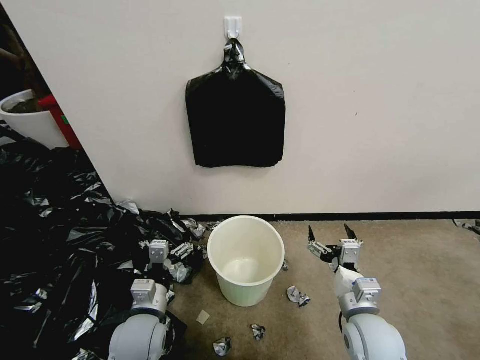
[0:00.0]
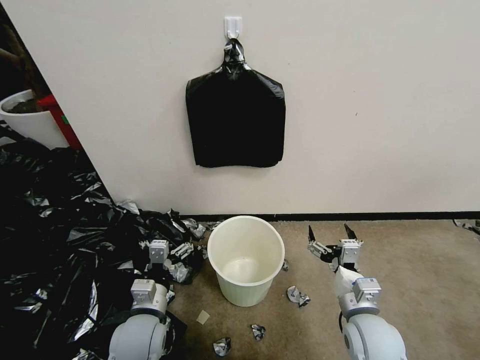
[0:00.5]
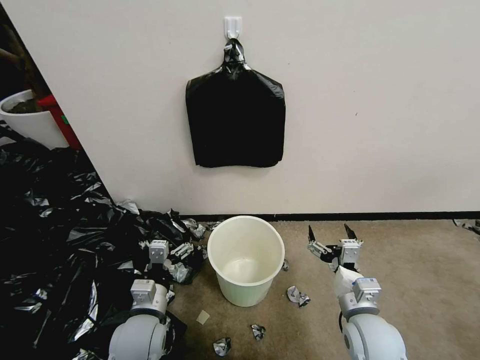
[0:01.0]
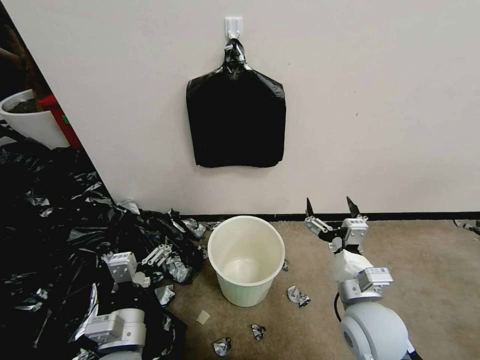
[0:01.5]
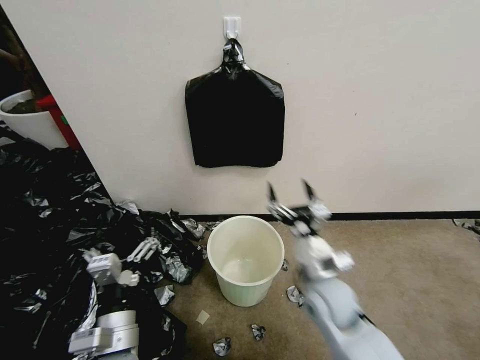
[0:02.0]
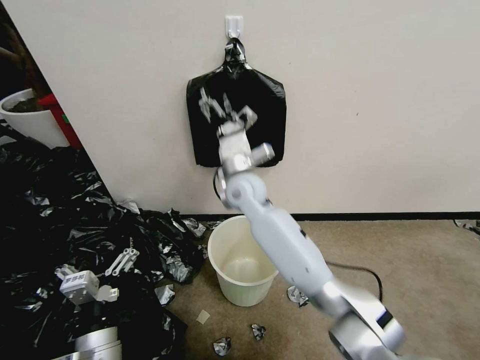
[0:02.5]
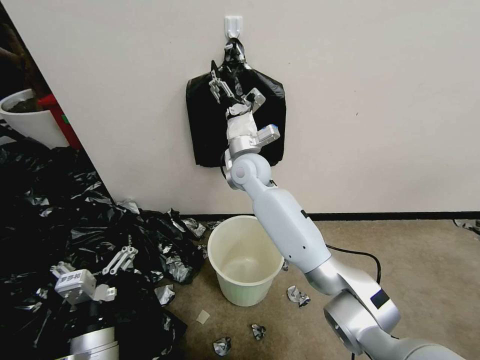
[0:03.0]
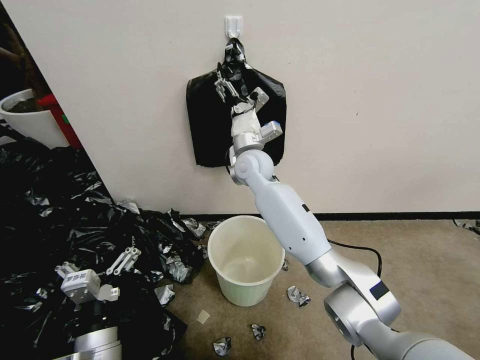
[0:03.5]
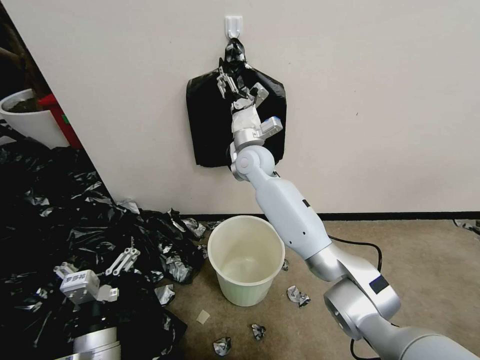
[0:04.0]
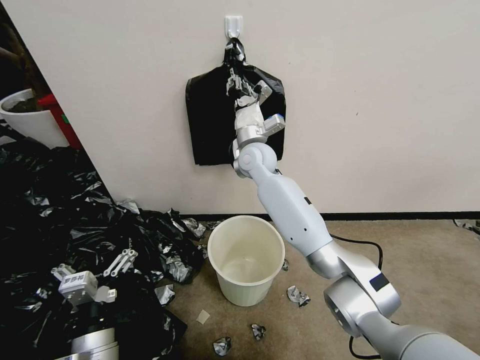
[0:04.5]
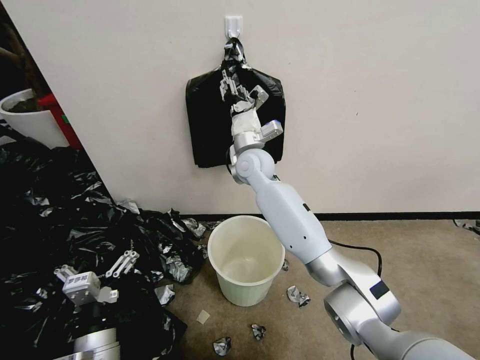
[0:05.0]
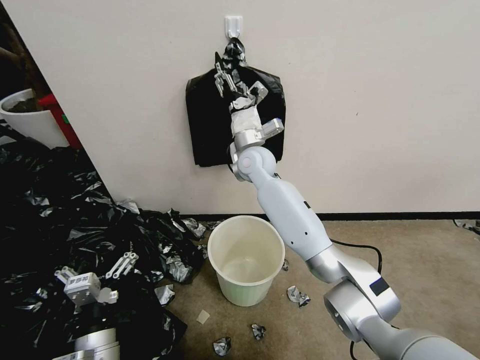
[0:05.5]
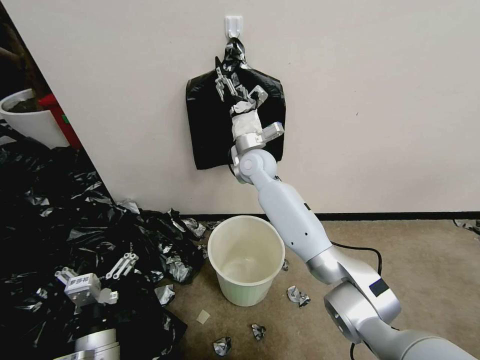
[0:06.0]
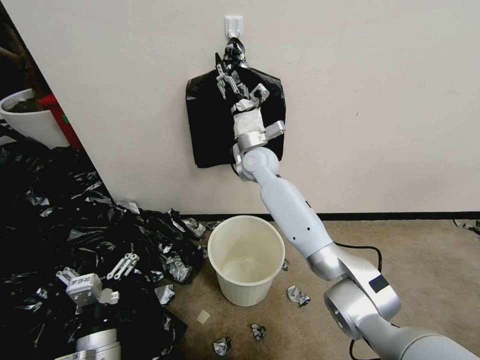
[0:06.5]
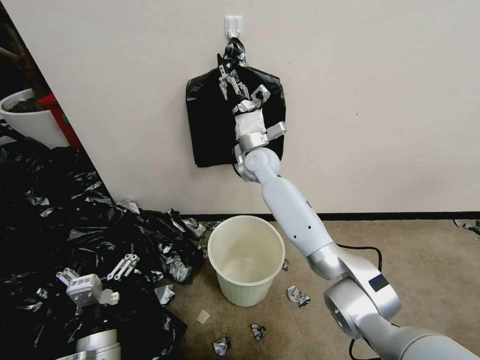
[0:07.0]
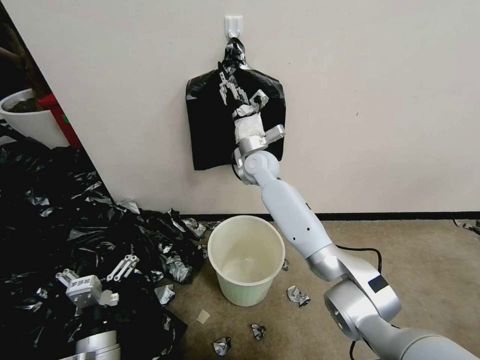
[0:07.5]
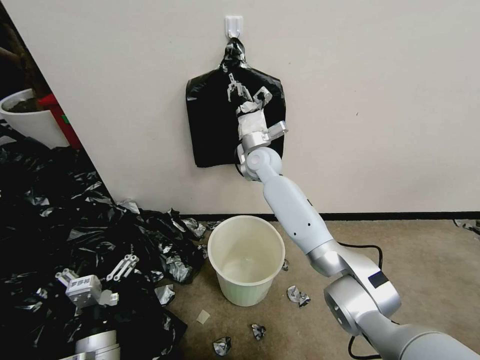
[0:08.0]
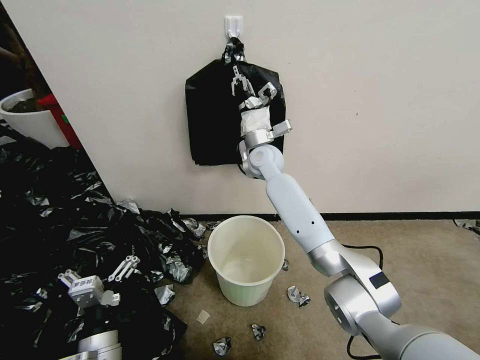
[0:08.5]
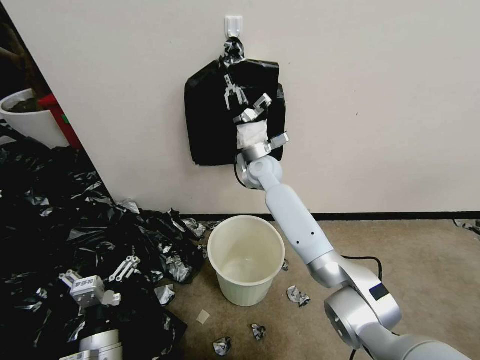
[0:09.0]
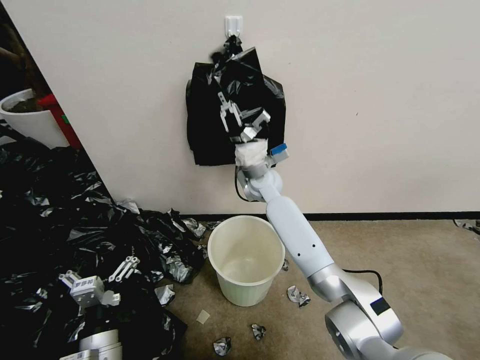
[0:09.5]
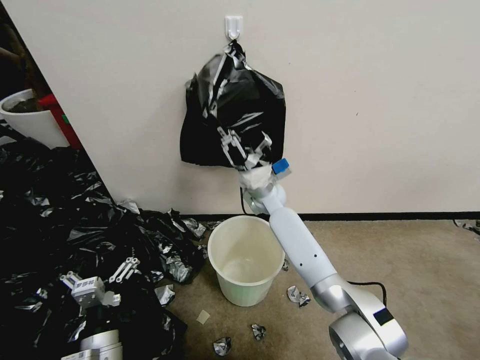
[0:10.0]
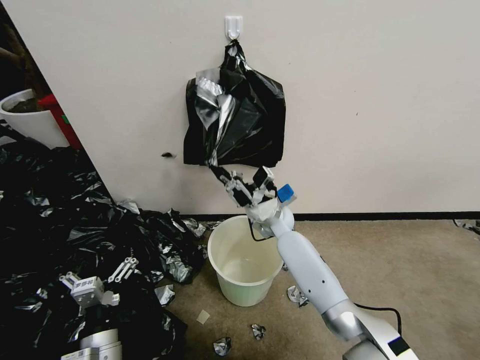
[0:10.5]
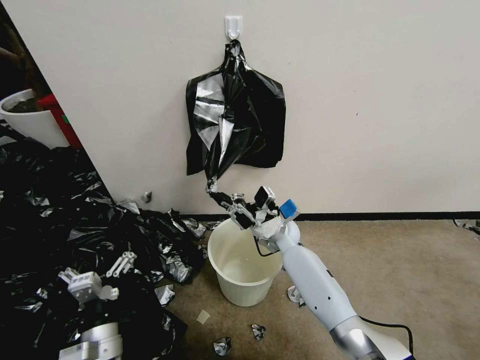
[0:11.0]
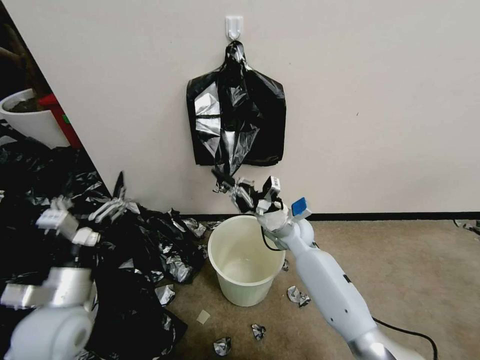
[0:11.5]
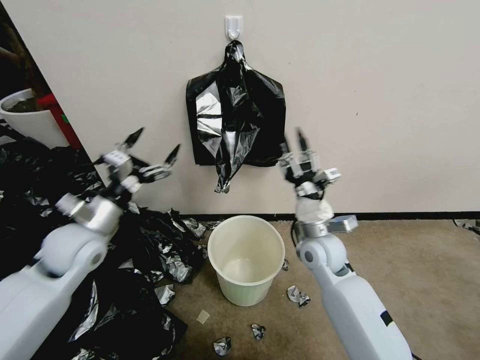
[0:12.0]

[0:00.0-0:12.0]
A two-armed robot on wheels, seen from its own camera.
Task of the whole recording: Place a trash bag onto the trash bin.
0:02.0 to 0:04.0: The right gripper travels forward, to the left and upward by roughly 35 cm.
0:04.0 to 0:06.0: The right gripper closes, then opens again.
0:06.0 to 0:08.0: The right gripper closes its fingers.
0:08.0 to 0:10.0: The right gripper heads downward, covering some 10 cm.
0:10.0 to 0:12.0: The left gripper moves forward and upward, some 25 cm, while the right gripper moves backward and to the right, approximately 20 cm, and opens up.

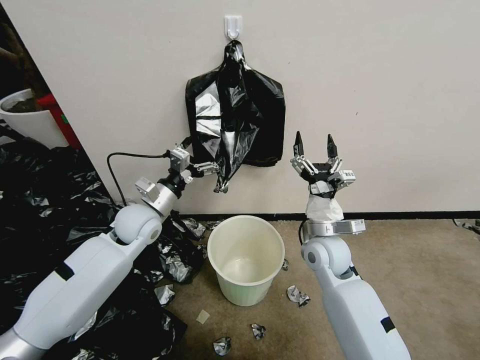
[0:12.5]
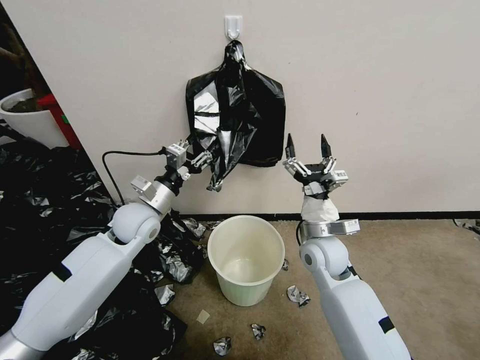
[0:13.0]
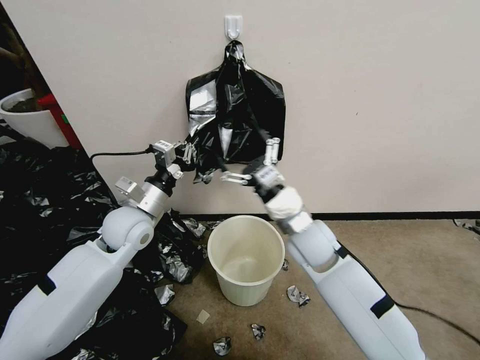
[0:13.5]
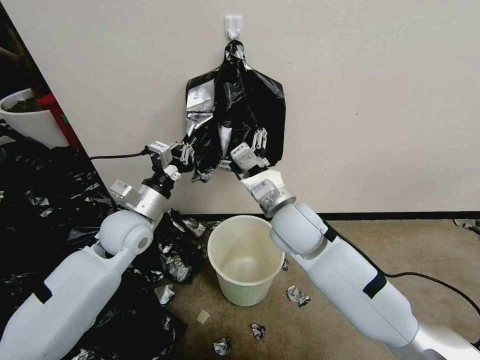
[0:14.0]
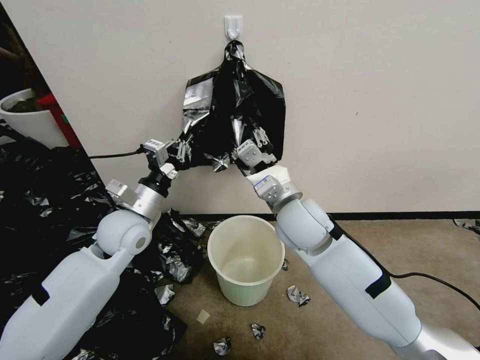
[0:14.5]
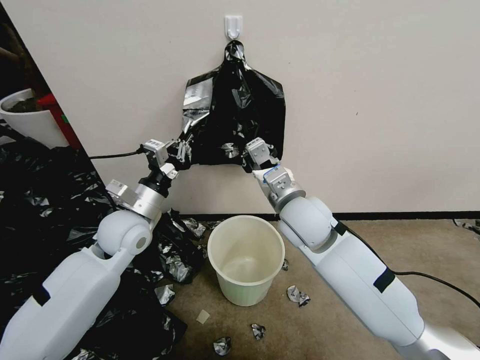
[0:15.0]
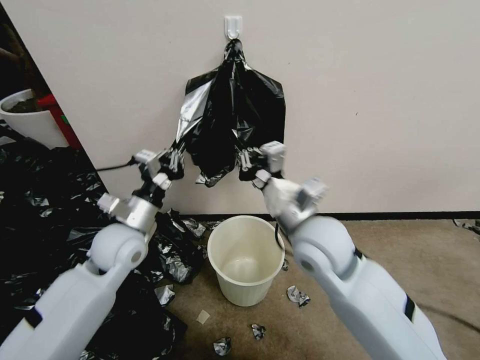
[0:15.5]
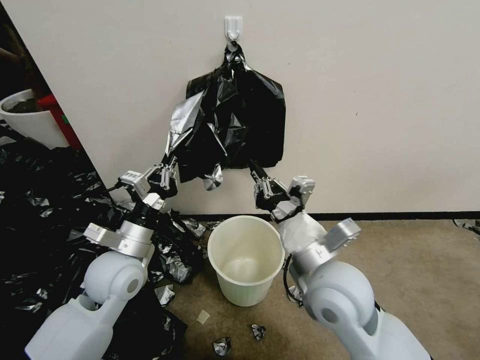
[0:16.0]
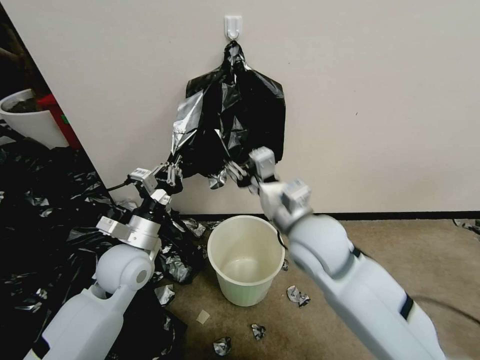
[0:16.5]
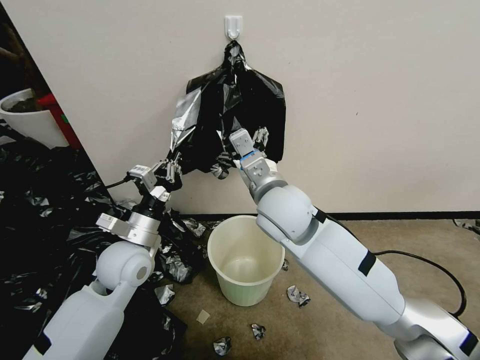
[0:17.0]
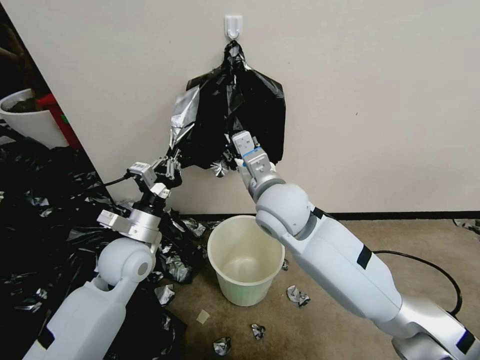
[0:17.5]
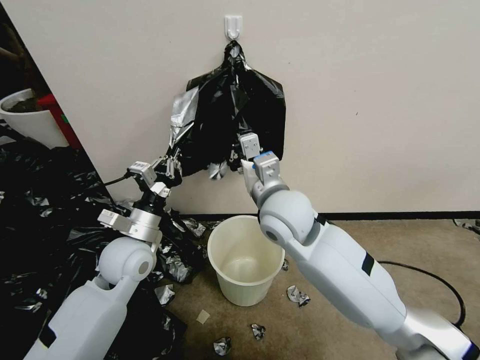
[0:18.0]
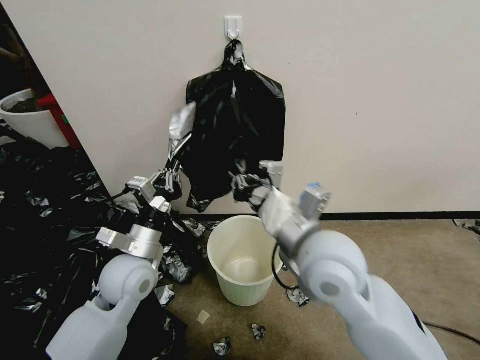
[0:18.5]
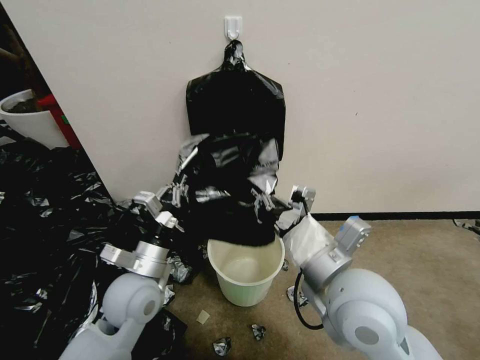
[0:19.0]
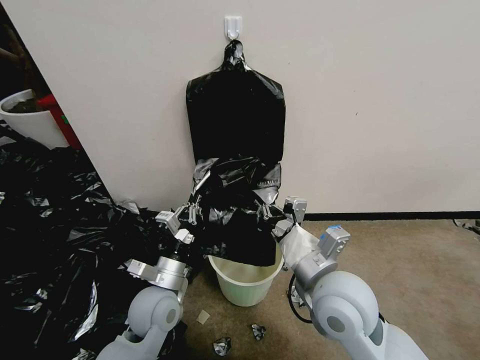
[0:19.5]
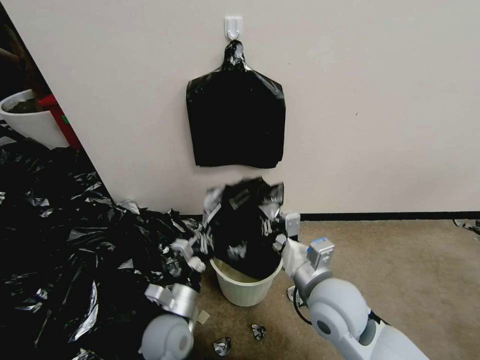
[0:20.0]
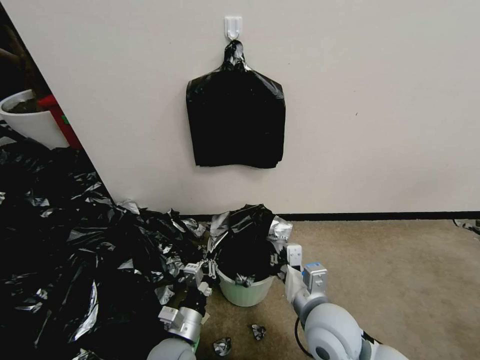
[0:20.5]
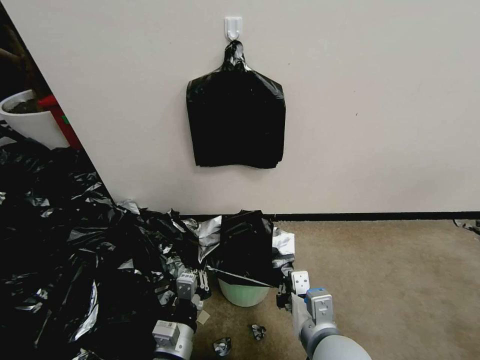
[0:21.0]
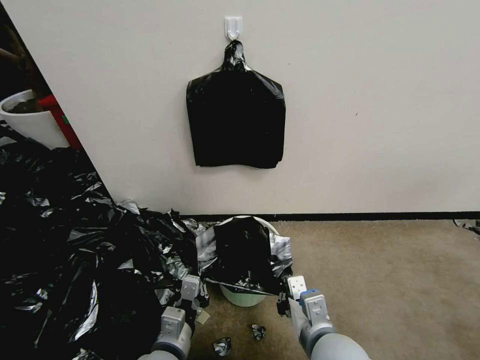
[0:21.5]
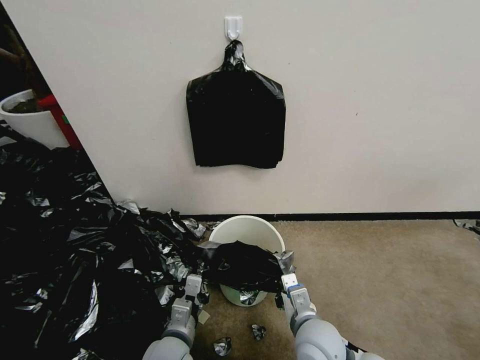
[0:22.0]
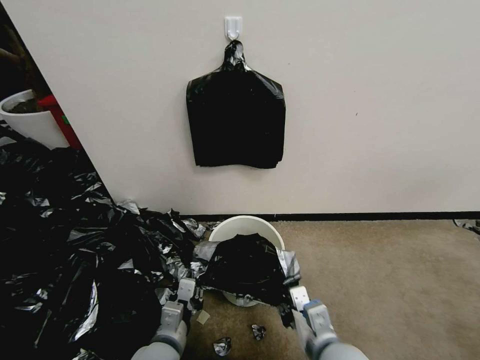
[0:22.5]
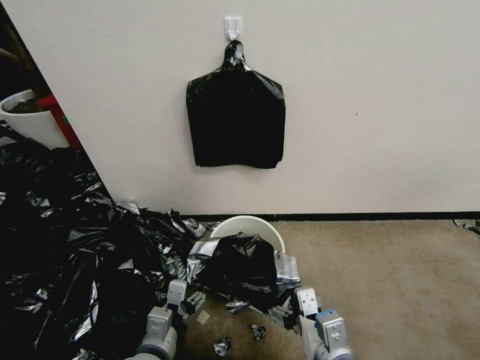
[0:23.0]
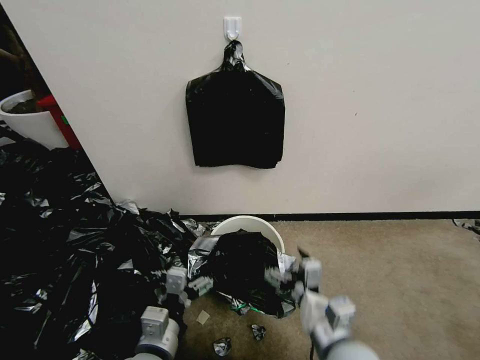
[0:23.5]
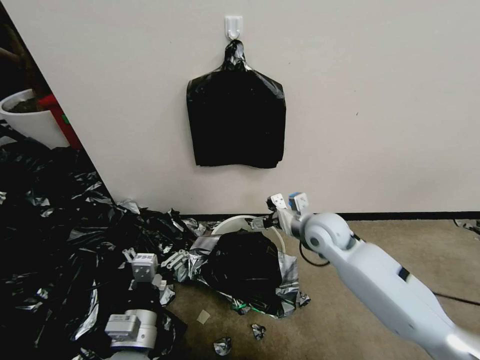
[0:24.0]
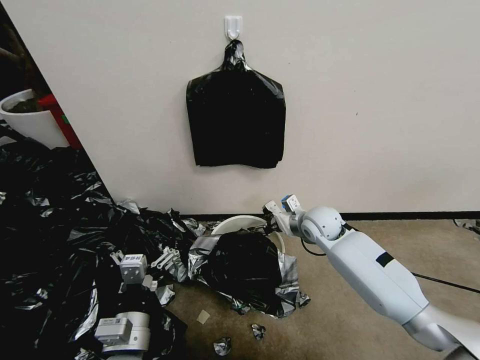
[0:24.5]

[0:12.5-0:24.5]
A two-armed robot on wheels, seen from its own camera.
Task of the whole recording: Place a trash bag onto the trash bin.
0:12.5 to 0:14.5: The right gripper heads upward and to the left, covering approximately 15 cm, and closes up, while the left gripper moves some 5 cm, and closes.
0:14.5 to 0:16.5: The two grippers go about 5 cm backward. The right gripper closes, then opens again.
0:16.5 to 0:18.5: The right gripper closes.
0:18.5 to 0:20.5: The right gripper goes approximately 20 cm downward and backward; the left gripper shifts approximately 20 cm downward, backward and to the right.
0:20.5 to 0:22.5: The right gripper moves about 5 cm.
0:22.5 to 0:24.5: The left gripper is displaced upward by about 10 cm, and opens up; the right gripper shifts roughly 30 cm forward, and opens up.

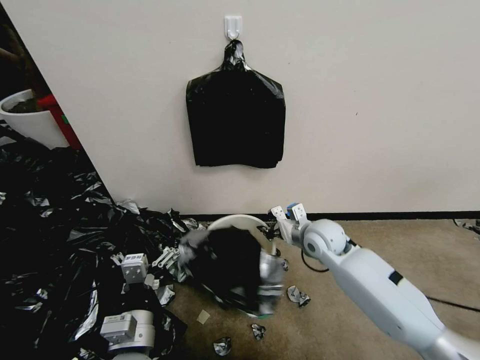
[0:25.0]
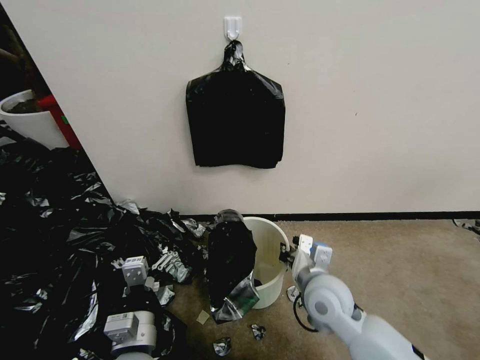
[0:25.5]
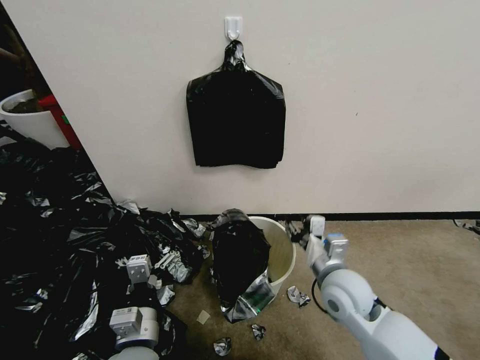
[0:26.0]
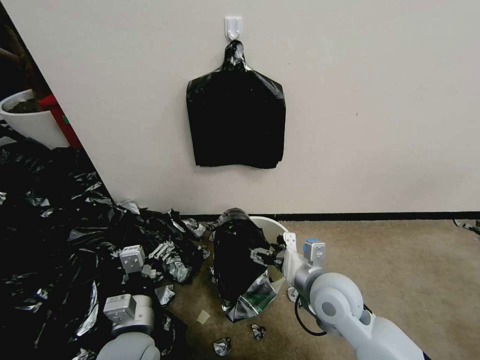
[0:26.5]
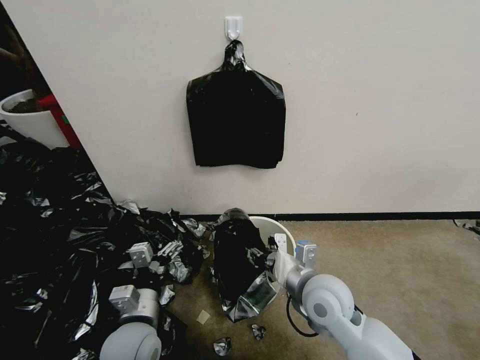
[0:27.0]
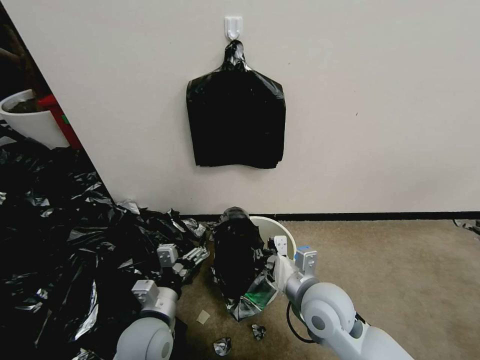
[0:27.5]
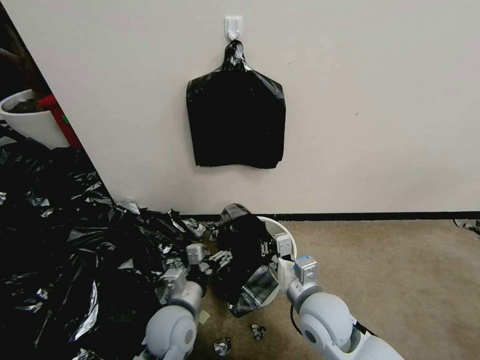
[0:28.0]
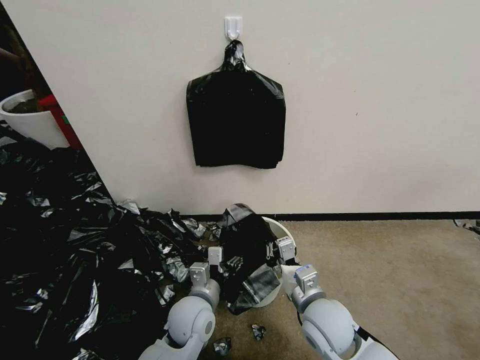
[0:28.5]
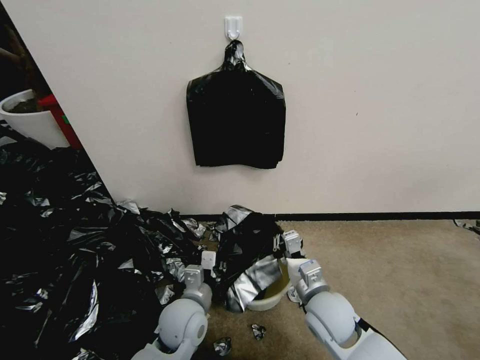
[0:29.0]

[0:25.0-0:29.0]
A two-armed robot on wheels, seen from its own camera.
Task of the whole recording: Place a trash bag onto the trash bin.
0:25.0 to 0:27.0: The right gripper shifts approximately 15 cm backward, and opens, then closes once more. Meanwhile the left gripper travels forward by roughly 5 cm.
0:27.0 to 0:29.0: The left gripper moves to the right and forward, approximately 10 cm, and closes, while the right gripper goes approximately 5 cm downward, and closes its fingers.
